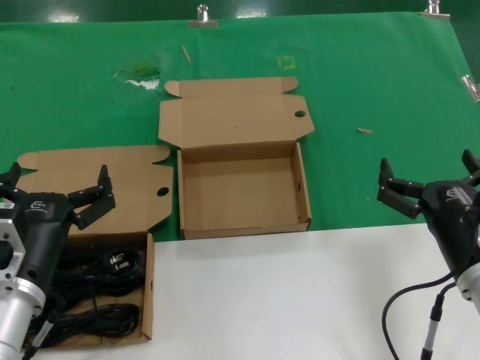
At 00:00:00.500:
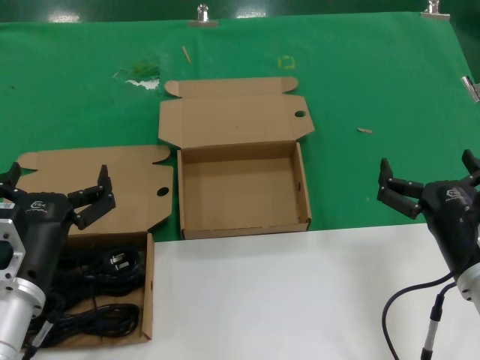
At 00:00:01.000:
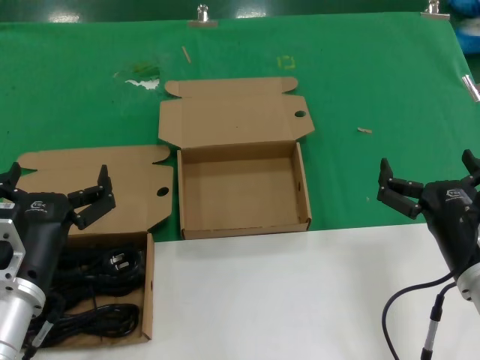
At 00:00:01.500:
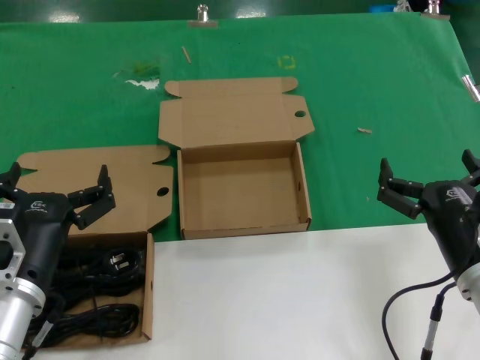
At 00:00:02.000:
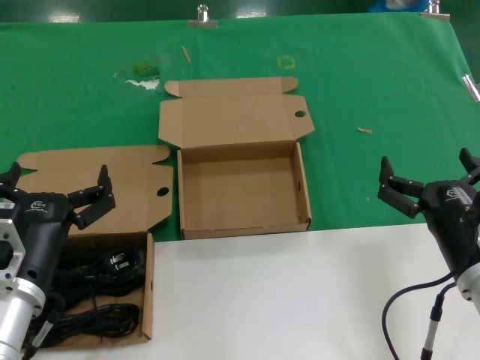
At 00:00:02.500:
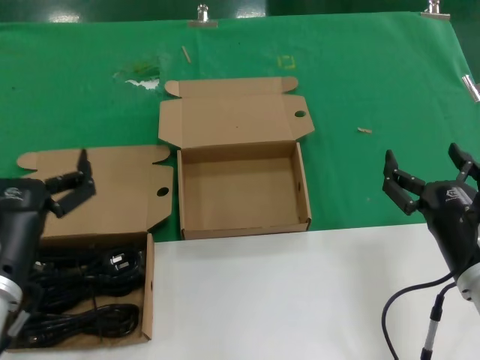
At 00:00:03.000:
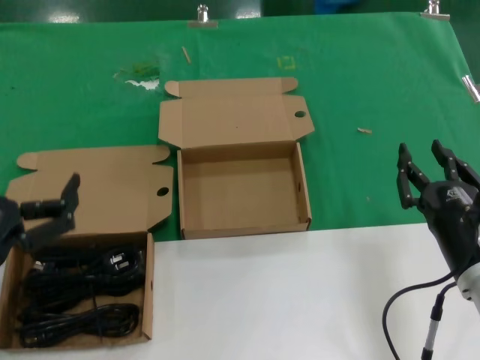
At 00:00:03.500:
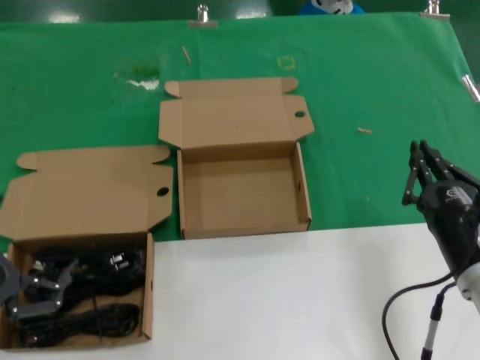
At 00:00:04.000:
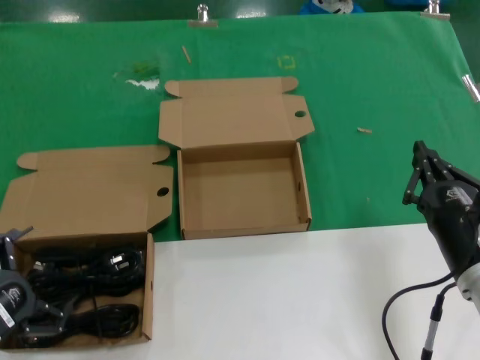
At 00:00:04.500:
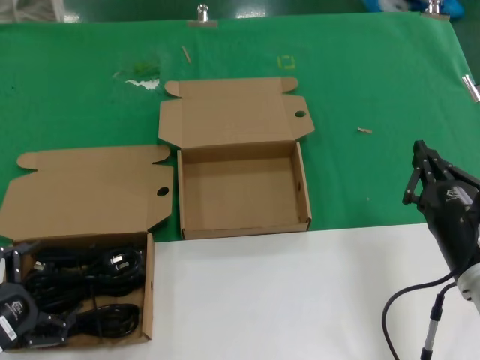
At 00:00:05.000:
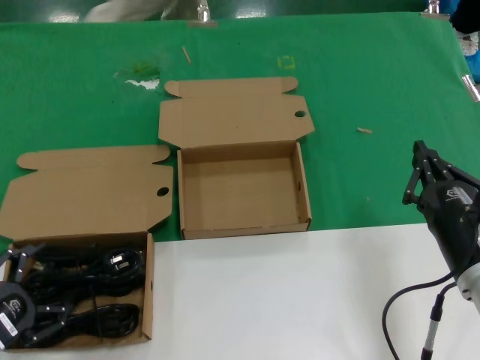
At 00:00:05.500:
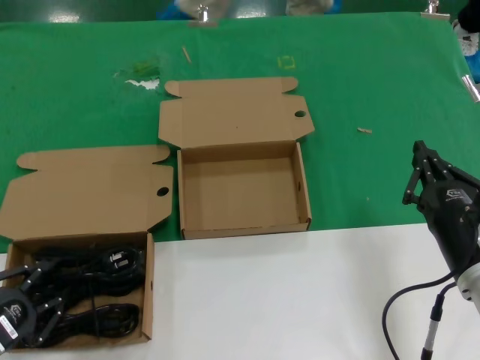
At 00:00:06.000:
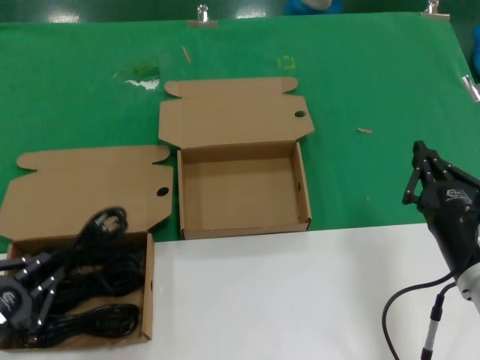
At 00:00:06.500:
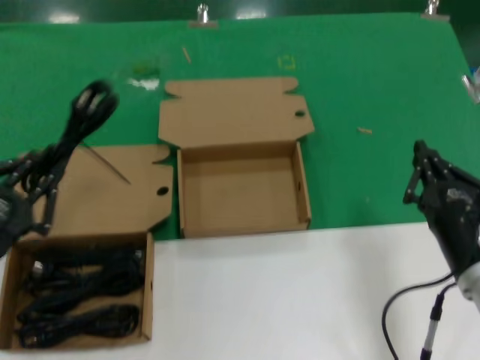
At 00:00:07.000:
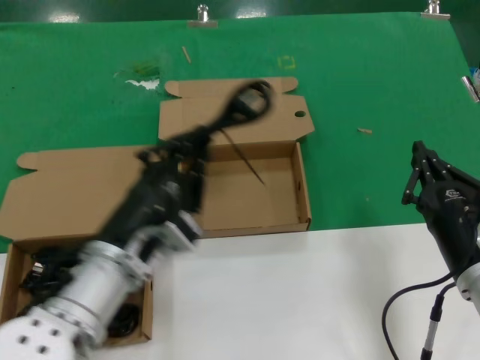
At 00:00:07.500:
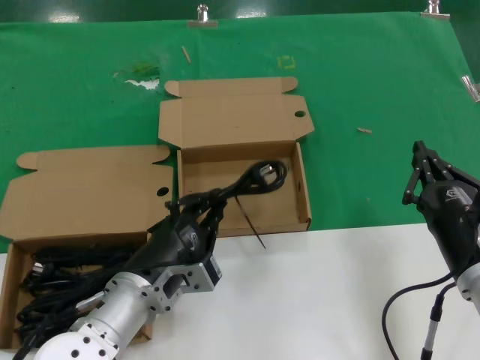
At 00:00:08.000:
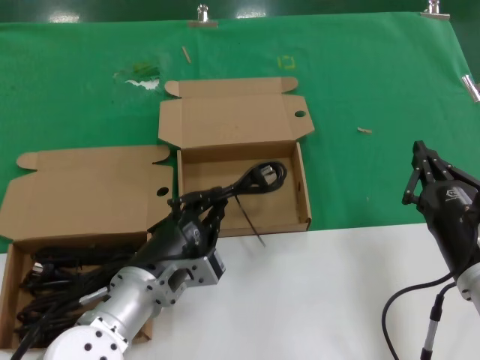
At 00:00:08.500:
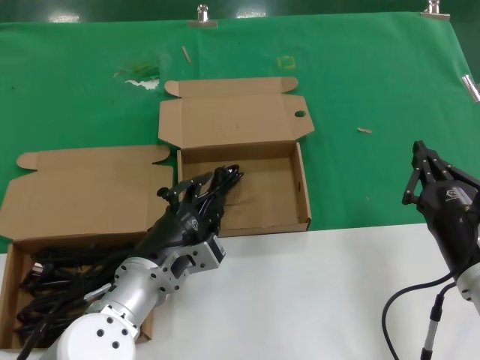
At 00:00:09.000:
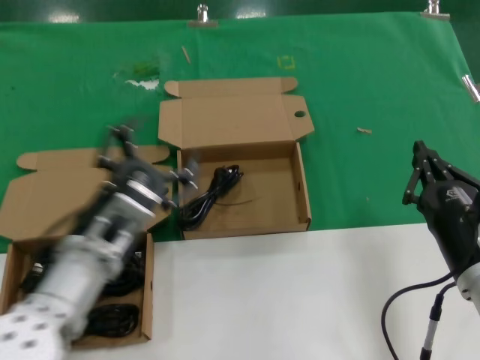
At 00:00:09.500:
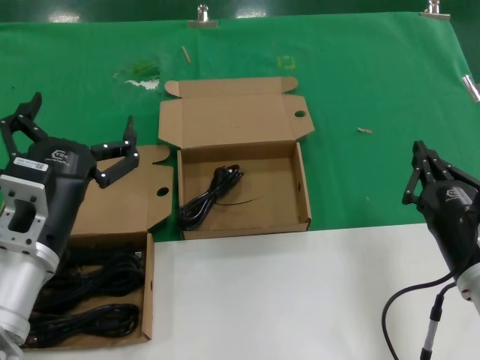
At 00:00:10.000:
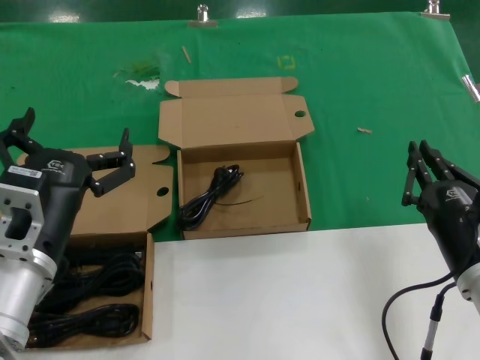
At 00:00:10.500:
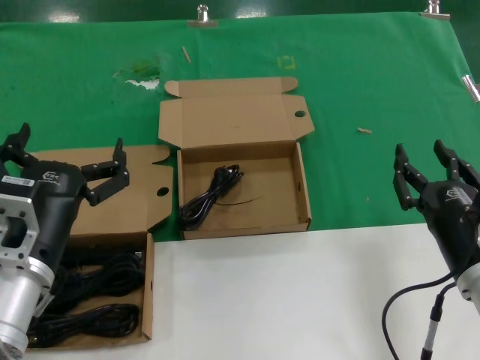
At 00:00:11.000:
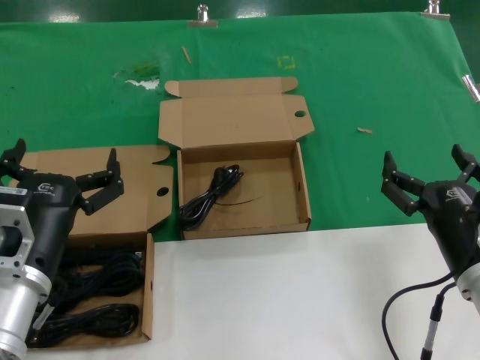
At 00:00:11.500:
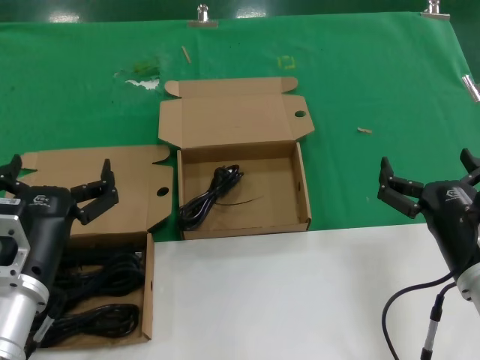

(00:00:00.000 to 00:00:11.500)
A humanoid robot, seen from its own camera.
Task of the whole recording: Pick up the power cord from the box containing it and place it in another box.
Step, 00:00:00.000 - 00:00:05.500: Grasp the data cable.
Step, 00:00:06.000 - 00:00:08.500: Place the data cable in the another box.
00:00:00.000 - 00:00:02.000: Both hands stay about where they are.
00:00:02.000 - 00:00:04.000: The left hand moves to the left, roughly 15 cm.
00:00:04.000 - 00:00:06.000: The hands move only a little.
00:00:06.000 - 00:00:07.500: The left hand heads to the right, covering about 25 cm.
00:00:07.500 - 00:00:09.500: The left hand goes roughly 10 cm upward and to the left.
00:00:09.500 - 00:00:11.500: The hands make only small movements.
